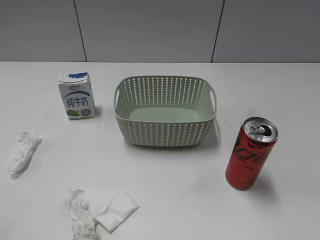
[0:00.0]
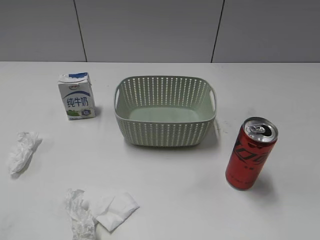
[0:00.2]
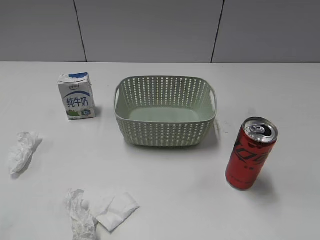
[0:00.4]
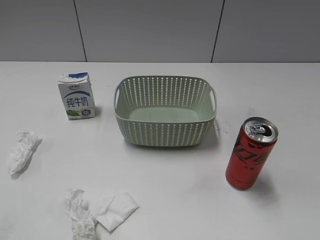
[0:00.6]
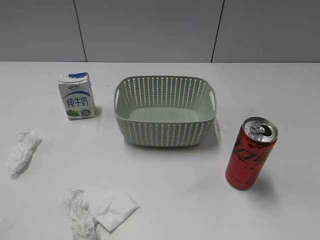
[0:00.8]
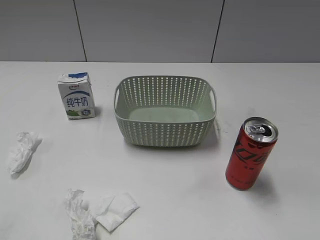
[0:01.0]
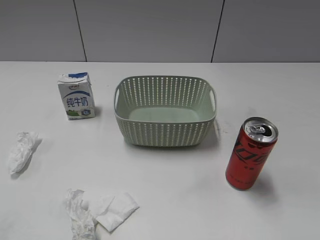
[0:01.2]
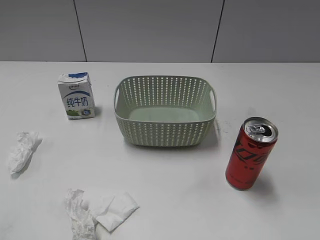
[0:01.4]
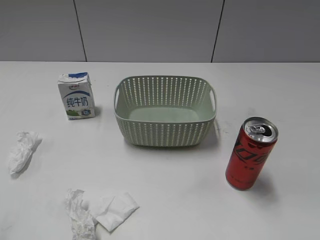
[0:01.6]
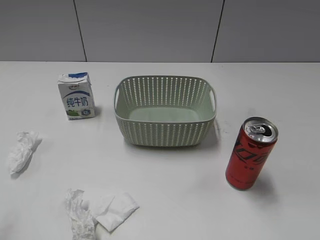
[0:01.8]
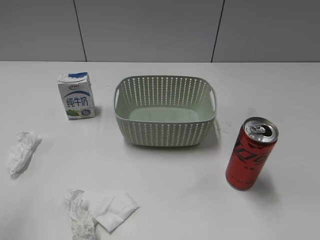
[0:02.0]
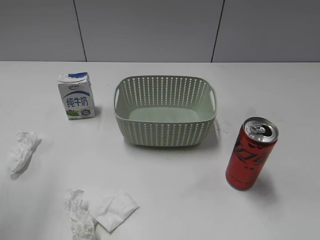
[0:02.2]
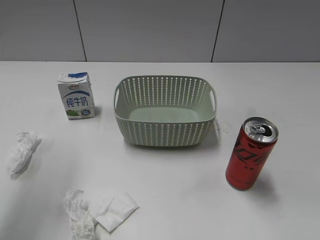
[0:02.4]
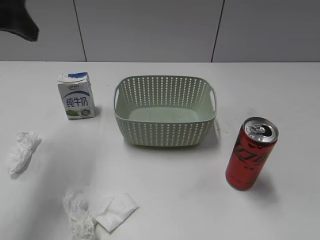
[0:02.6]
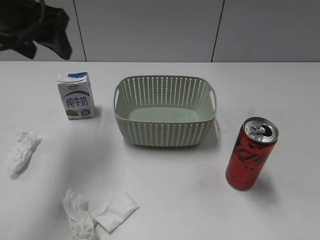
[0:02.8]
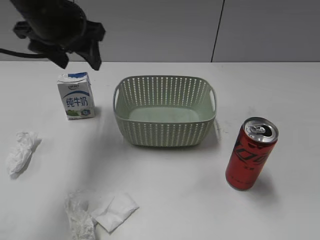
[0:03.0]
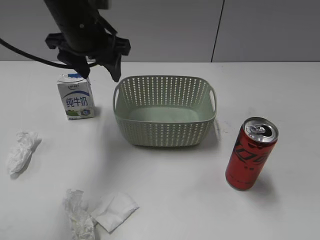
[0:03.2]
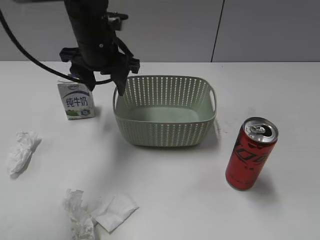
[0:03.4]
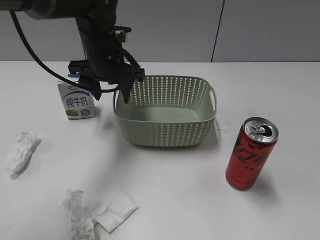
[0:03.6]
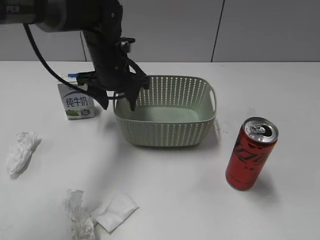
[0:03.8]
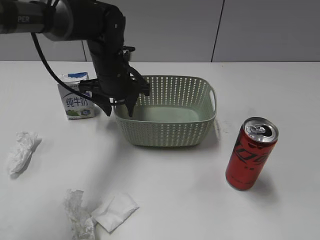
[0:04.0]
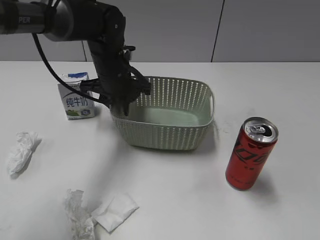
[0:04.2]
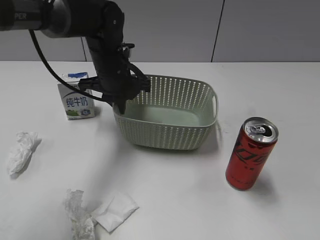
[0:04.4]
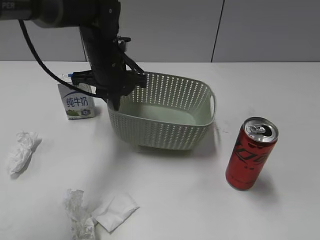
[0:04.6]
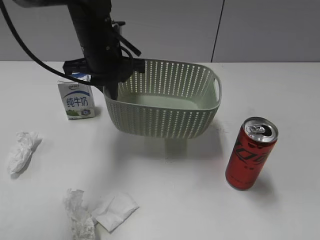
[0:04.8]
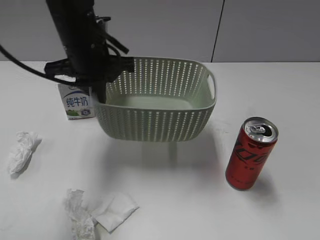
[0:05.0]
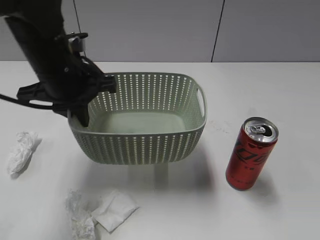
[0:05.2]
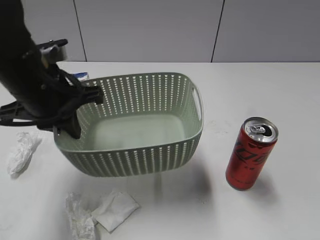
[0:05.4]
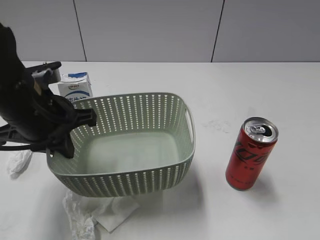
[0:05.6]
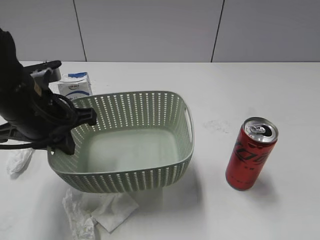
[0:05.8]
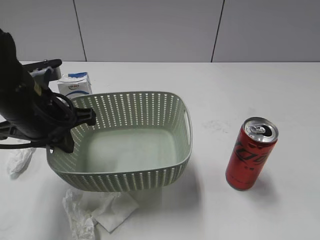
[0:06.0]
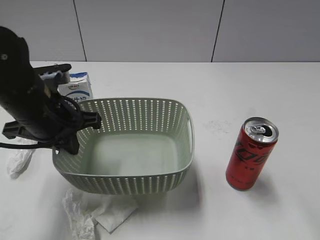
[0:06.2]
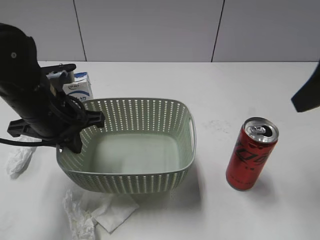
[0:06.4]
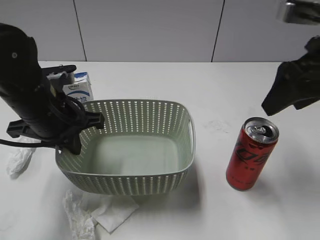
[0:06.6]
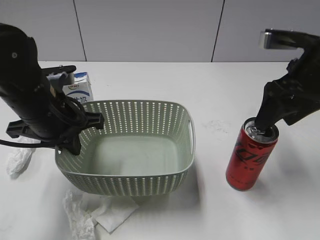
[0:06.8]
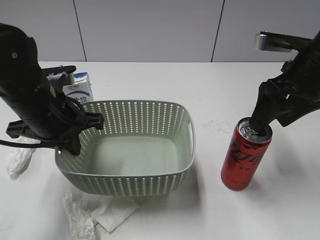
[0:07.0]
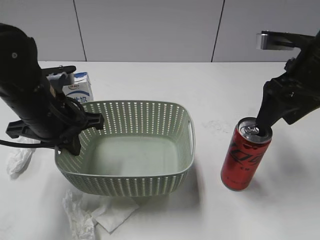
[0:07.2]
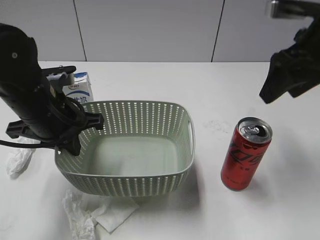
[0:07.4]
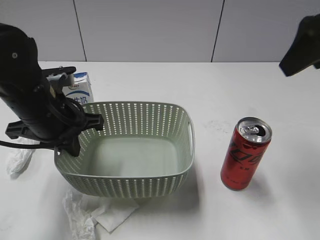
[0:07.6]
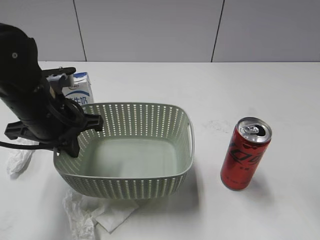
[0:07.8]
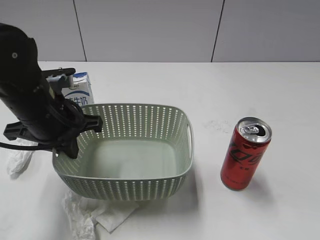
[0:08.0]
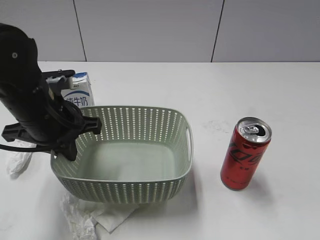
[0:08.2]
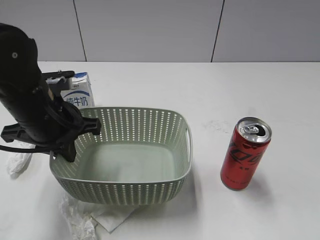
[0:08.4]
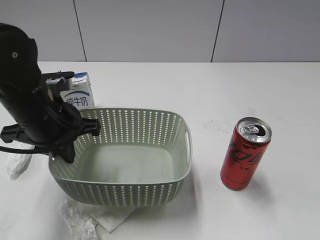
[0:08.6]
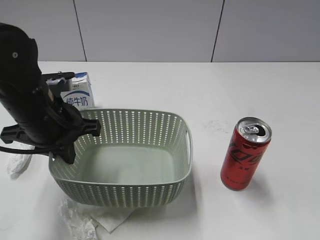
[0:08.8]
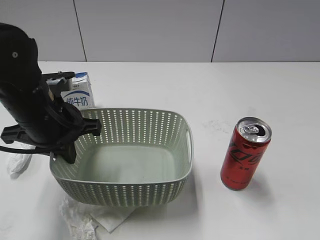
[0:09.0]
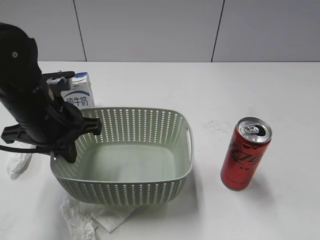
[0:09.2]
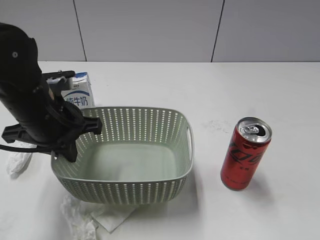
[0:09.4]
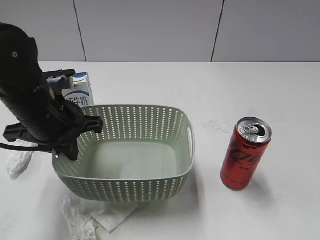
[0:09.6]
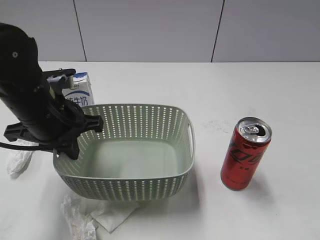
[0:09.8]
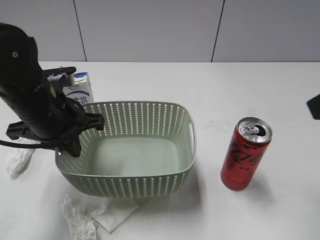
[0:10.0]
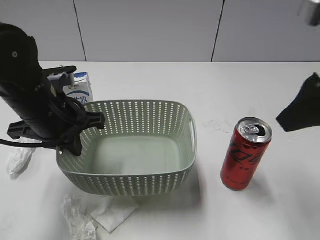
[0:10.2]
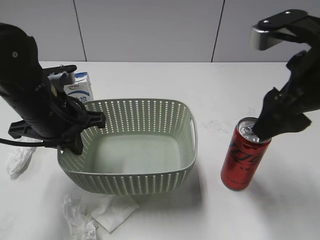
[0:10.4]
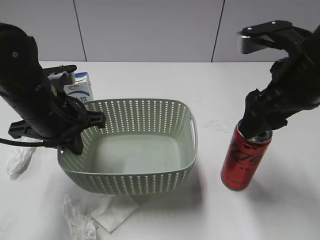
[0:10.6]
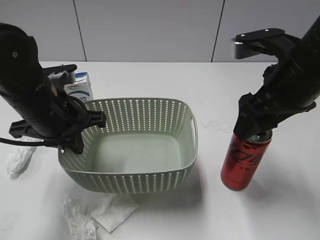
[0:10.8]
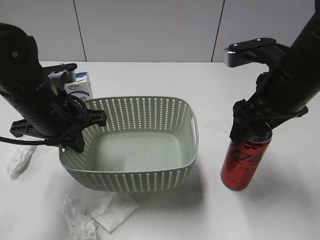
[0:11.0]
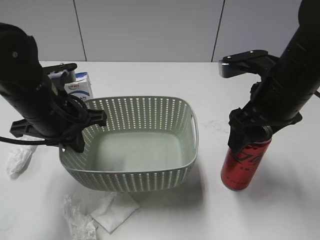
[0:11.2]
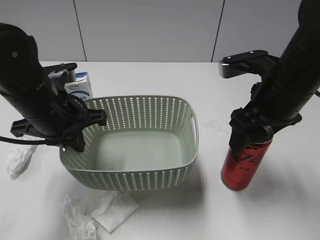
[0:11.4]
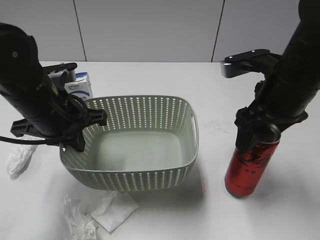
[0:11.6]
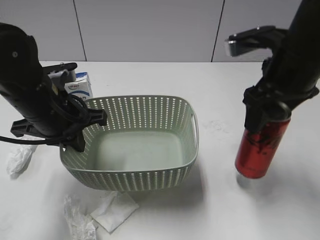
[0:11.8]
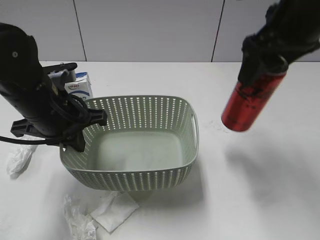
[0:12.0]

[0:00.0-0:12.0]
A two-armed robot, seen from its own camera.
Step, 0:02.6 to 0:04.4: Grasp the basket with left gripper.
Step, 0:04.6 to 0:06.2: Lift the basket with left gripper.
Step, 0:06.4 to 0:11.4: Grasp the cola can with right gripper.
0:01.6 to 0:03.0: The left gripper is displaced forward and to the right by roughly 35 cm.
0:03.0 to 0:04.4: The left gripper heads downward and to the right, covering about 15 cm, and closes its fingers.
0:04.4 to 0:06.0: The right gripper goes roughly 10 cm forward and upward; the left gripper shifts approximately 20 cm backward and to the left.
0:06.0 to 0:07.6: The right gripper travels forward by about 20 cm.
0:07.6 to 0:09.0: The right gripper shifts roughly 25 cm backward.
0:09.0 to 0:10.4: The right gripper goes some 25 cm forward and to the left.
0:10.4 to 0:12.0: The right gripper is displaced forward by roughly 5 cm, travels downward and back again, some 5 cm each way, and closes.

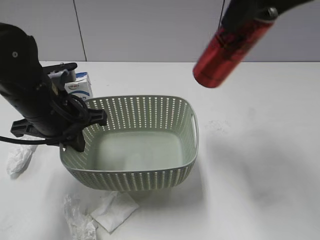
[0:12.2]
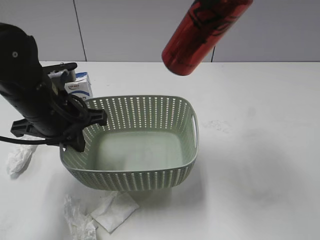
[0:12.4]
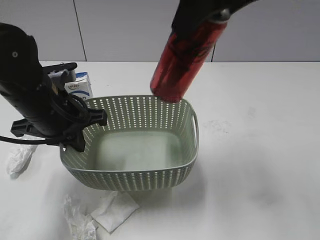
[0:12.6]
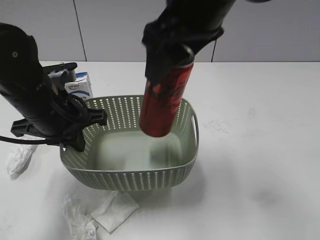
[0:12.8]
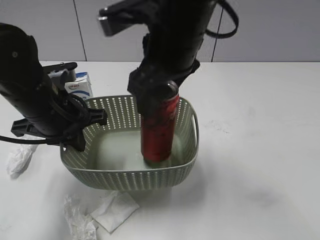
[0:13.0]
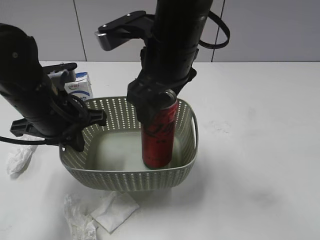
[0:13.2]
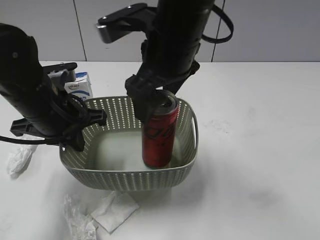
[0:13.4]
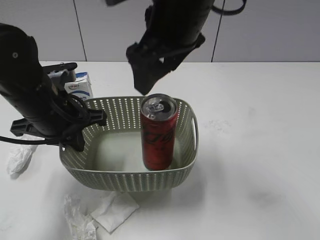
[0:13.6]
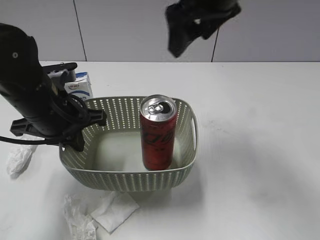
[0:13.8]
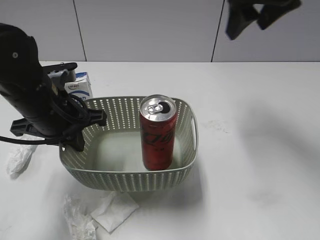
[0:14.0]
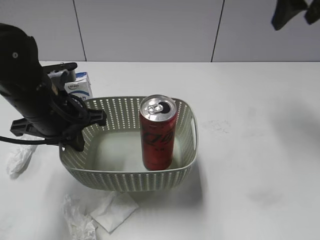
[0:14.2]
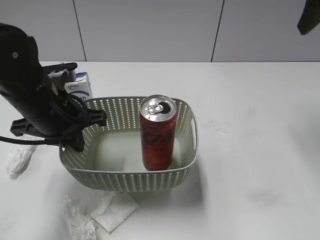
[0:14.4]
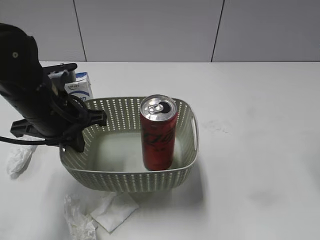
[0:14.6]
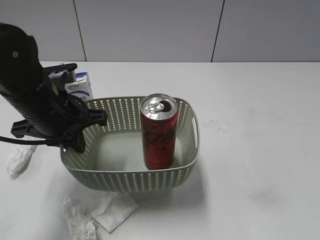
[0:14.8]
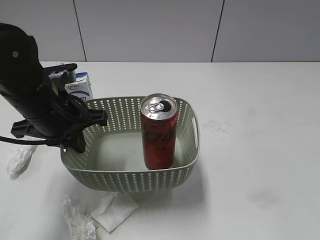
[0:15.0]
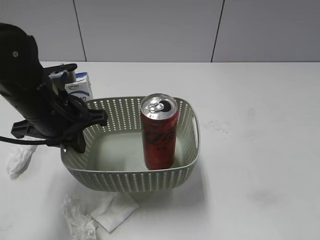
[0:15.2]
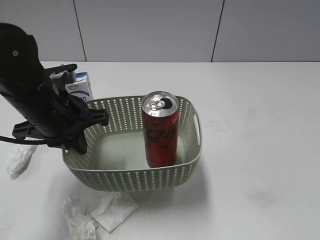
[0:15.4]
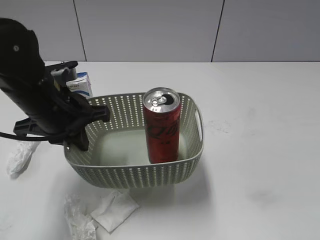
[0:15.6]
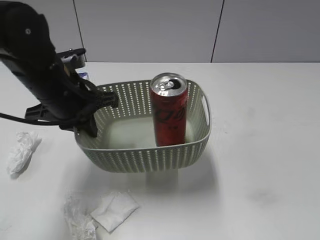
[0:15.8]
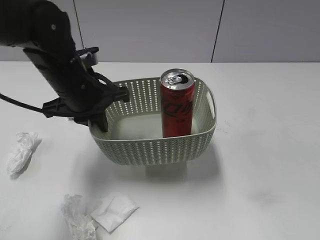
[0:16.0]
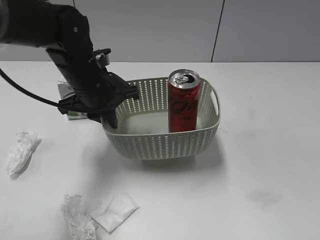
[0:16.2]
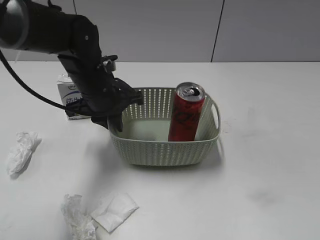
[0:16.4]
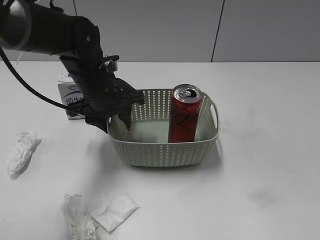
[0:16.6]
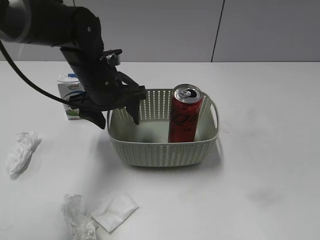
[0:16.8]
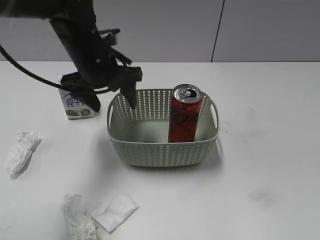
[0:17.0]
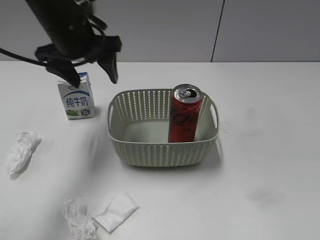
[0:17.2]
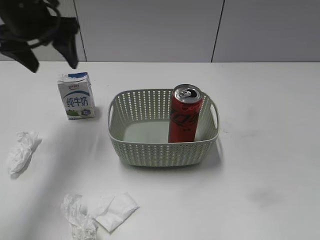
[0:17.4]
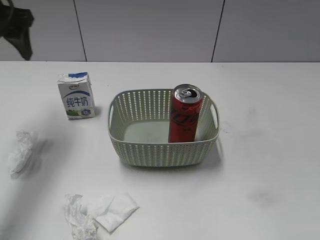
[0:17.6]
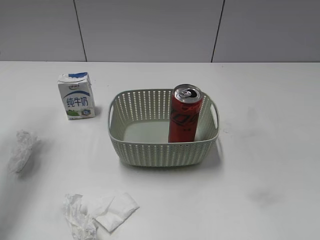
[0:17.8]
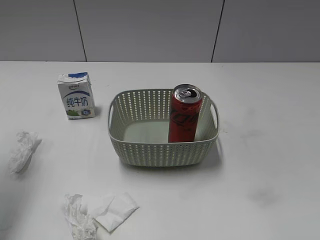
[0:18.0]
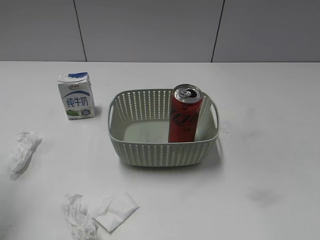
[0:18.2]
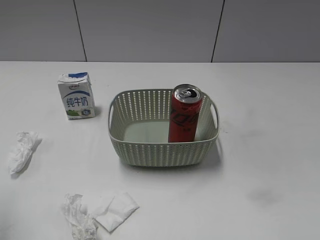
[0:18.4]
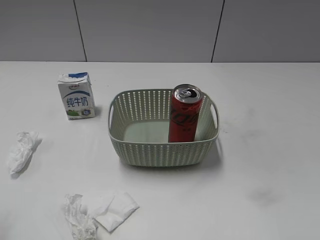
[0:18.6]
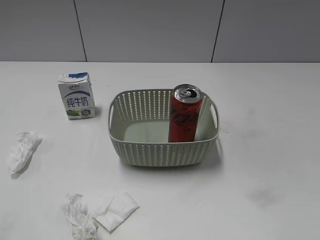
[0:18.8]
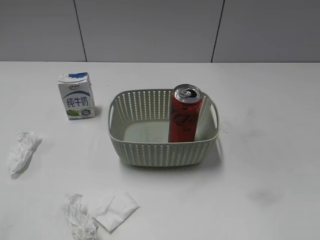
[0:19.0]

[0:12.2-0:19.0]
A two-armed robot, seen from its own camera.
Step, 0:12.2 to 0:13.2: Place the cola can in the basket with right gripper.
0:12.2 to 0:13.6: The right gripper shifts some 15 cm to the left and downward, and opens up.
0:13.6 to 0:15.0: The right gripper moves to the right and backward, some 30 cm, and closes.
0:15.0 to 0:16.2: The right gripper is displaced backward by about 15 cm. The left gripper is displaced forward by about 5 cm.
0:16.2 to 0:17.6: The left gripper goes about 20 cm to the left and upward, and opens.
0:17.6 to 0:19.0: The left gripper heads backward, covering roughly 35 cm.

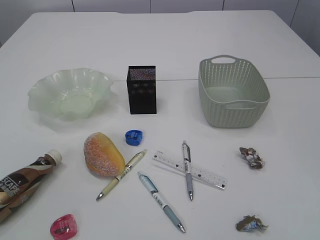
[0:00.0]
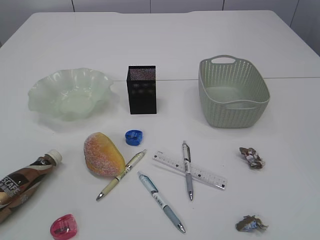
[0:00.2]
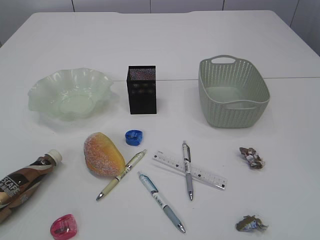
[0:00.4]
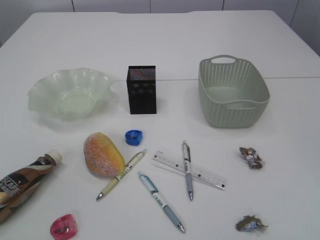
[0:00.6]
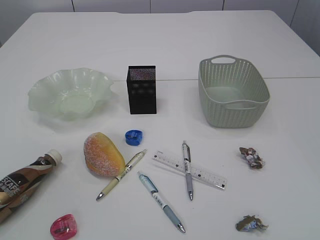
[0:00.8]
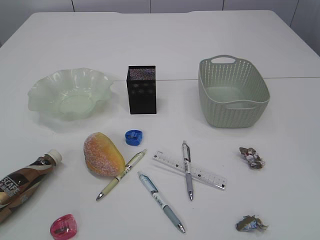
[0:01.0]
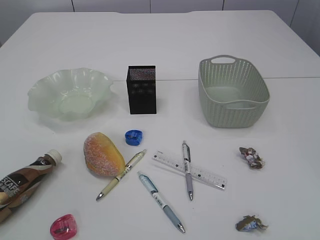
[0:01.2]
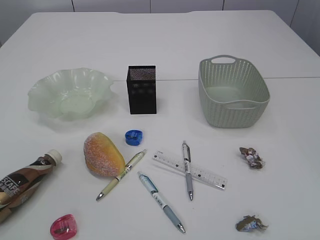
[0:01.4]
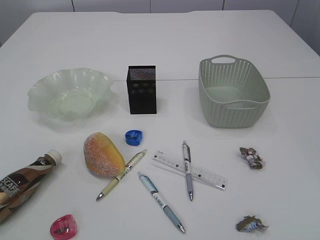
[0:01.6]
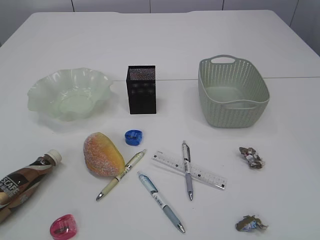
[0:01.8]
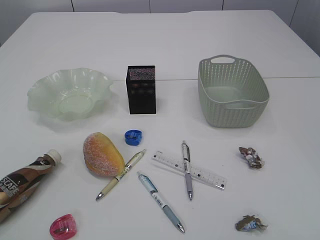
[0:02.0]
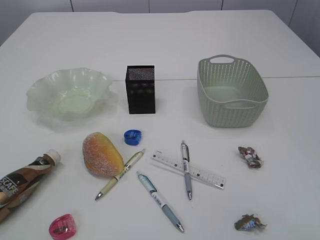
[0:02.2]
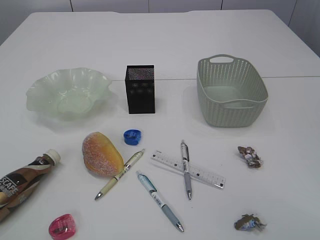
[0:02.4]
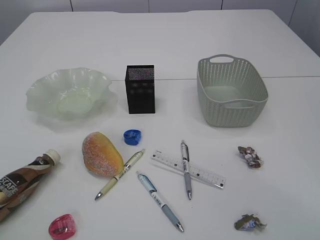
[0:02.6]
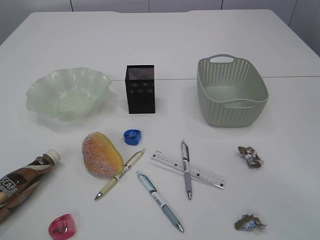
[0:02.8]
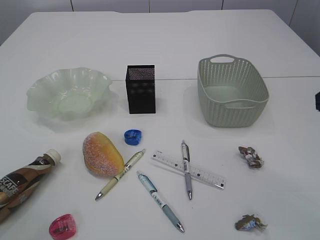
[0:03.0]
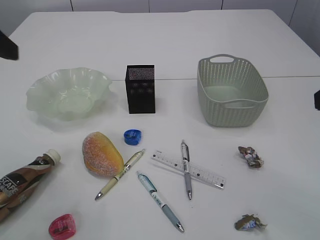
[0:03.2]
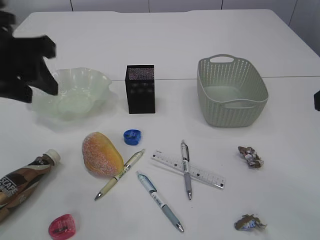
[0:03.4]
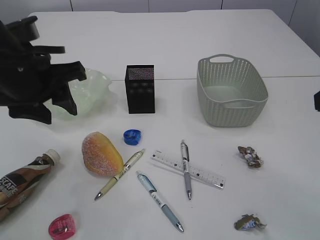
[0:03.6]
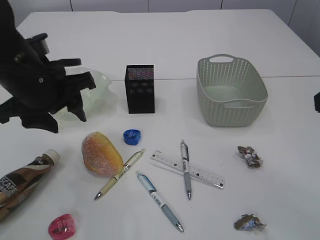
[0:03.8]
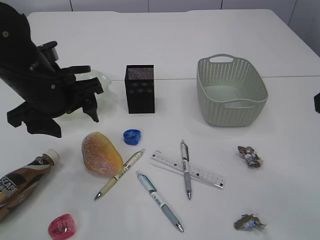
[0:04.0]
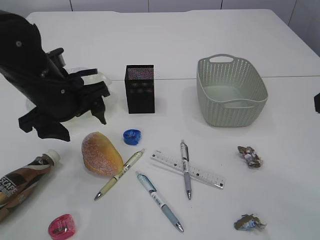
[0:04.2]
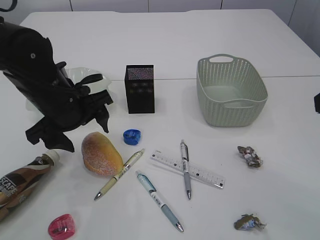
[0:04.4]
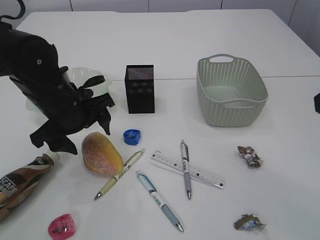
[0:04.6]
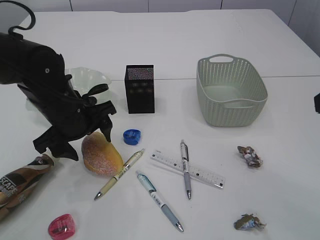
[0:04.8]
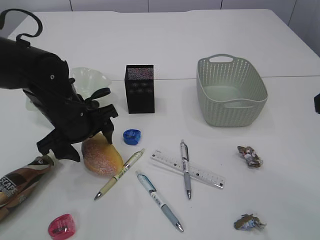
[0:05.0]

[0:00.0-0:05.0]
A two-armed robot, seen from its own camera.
0:01.6 to 0:03.4: The two grippers go some 25 cm forward.
0:03.4 to 0:05.0: The left gripper travels downward by about 15 cm, and opens its fingers.
